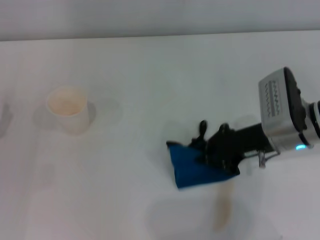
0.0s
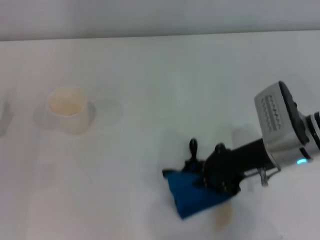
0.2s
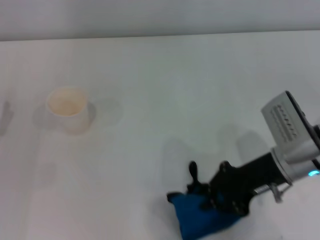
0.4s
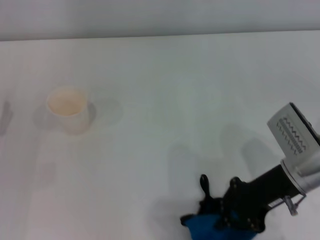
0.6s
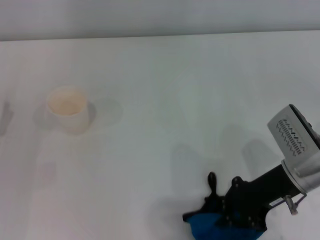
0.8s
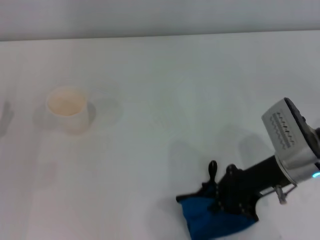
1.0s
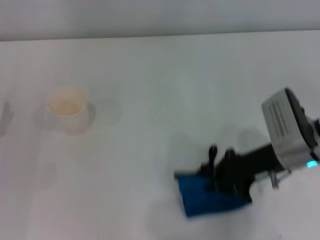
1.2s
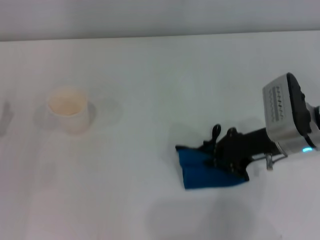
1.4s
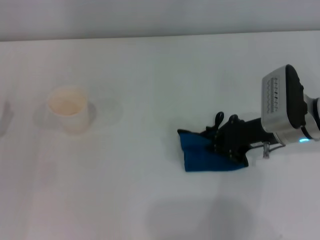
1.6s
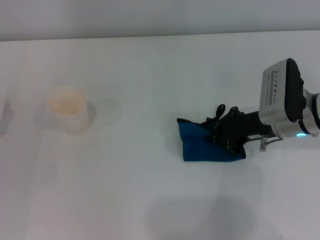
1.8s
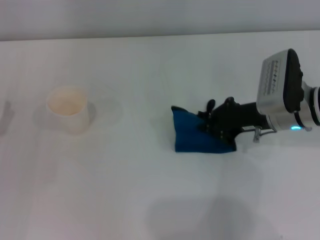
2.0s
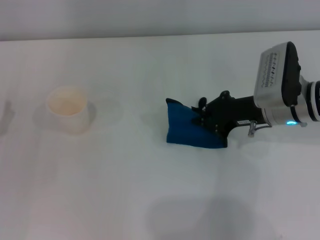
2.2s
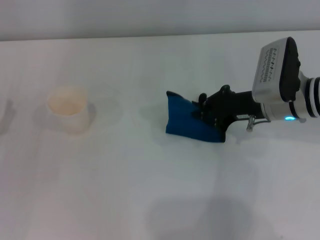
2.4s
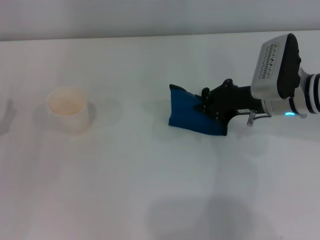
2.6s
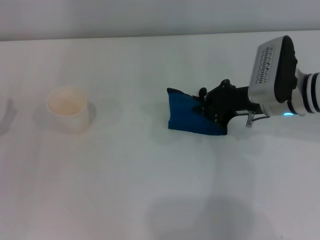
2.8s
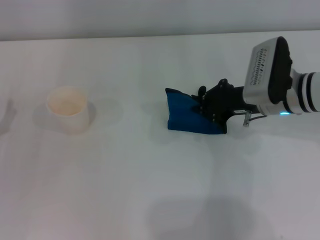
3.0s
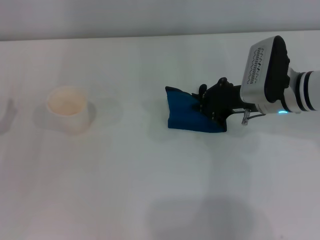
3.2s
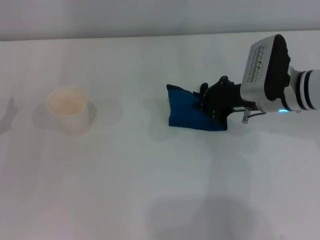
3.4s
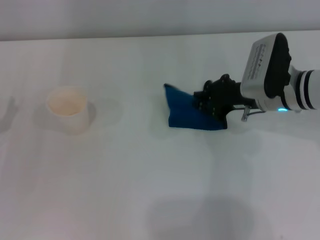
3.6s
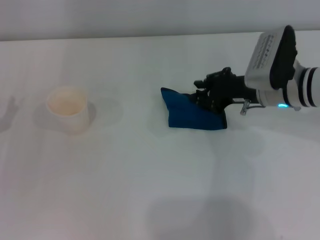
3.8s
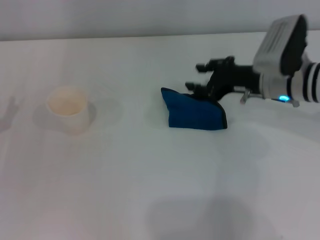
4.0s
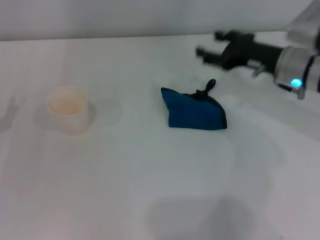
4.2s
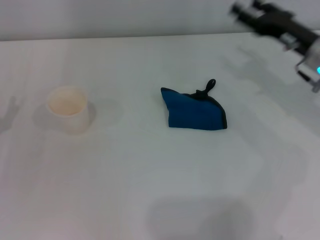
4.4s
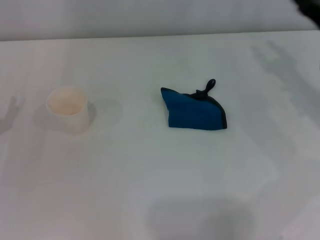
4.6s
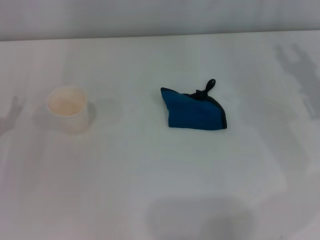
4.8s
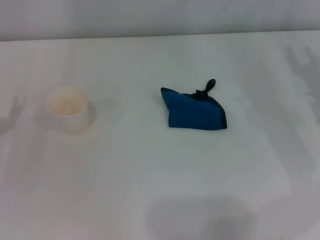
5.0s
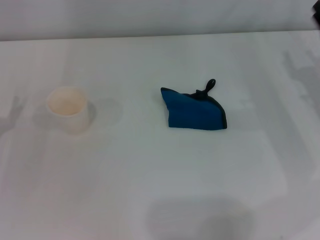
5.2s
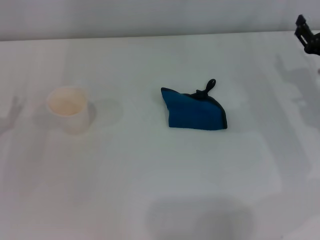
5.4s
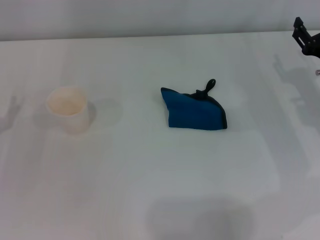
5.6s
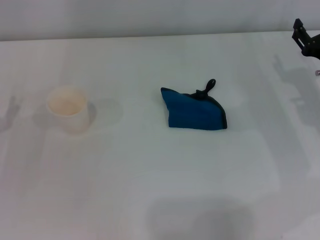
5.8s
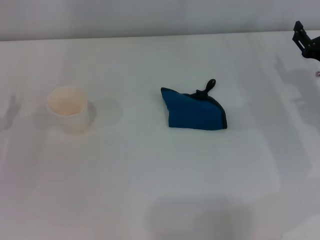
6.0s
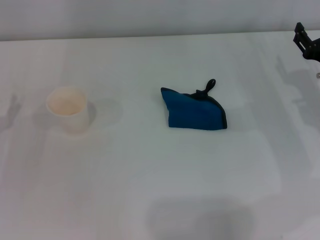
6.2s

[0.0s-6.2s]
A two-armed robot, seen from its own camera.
Step, 0.0s to 2.8s: Wipe the stains off the table with the right gripper.
Step, 3.2s to 3.6s: Place the rag on the table with the right gripper.
0.0s to 3.2s: The grippers move only a little.
3.2s to 4.6s: The right gripper moves to the right, roughly 10 cm, and opens up.
4.6s to 6.2s: The right gripper moves roughly 5 cm.
